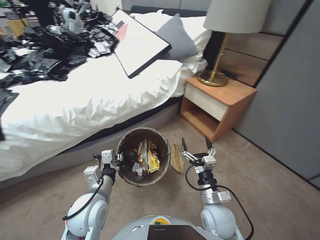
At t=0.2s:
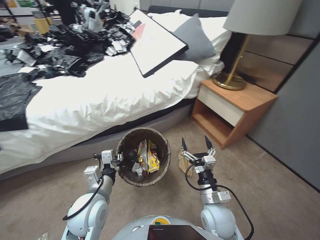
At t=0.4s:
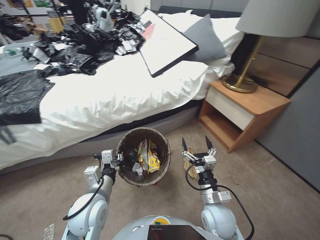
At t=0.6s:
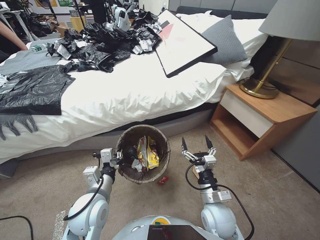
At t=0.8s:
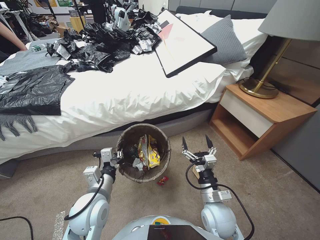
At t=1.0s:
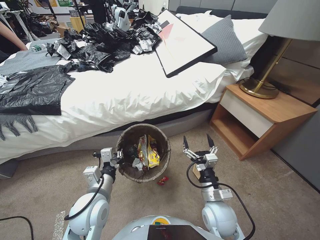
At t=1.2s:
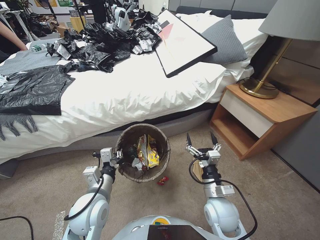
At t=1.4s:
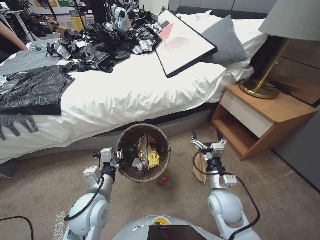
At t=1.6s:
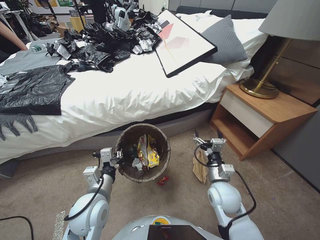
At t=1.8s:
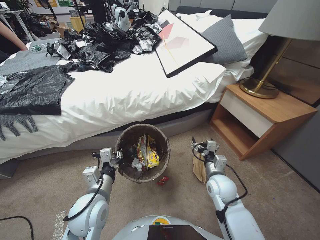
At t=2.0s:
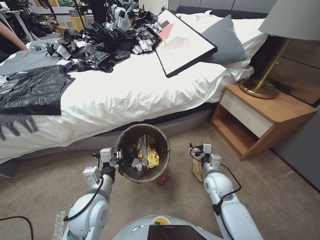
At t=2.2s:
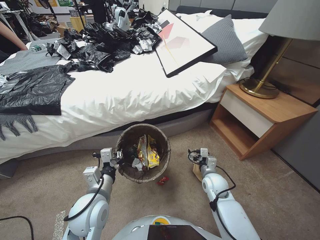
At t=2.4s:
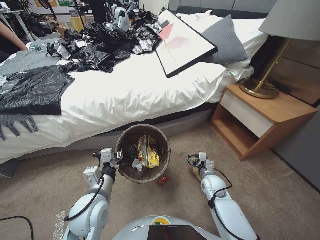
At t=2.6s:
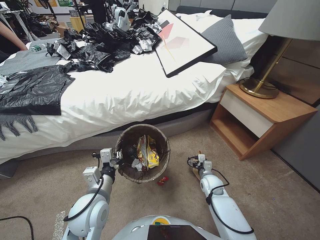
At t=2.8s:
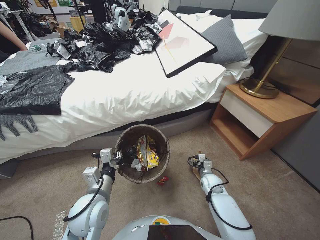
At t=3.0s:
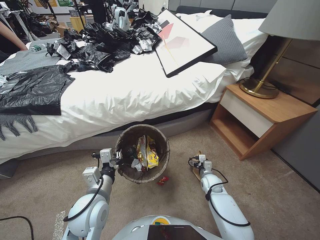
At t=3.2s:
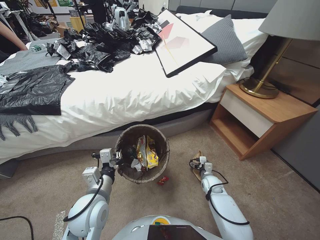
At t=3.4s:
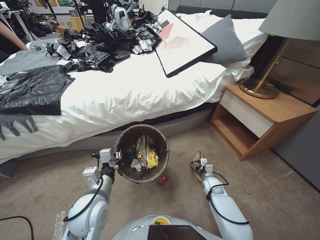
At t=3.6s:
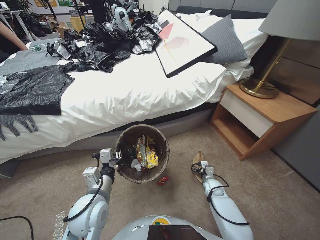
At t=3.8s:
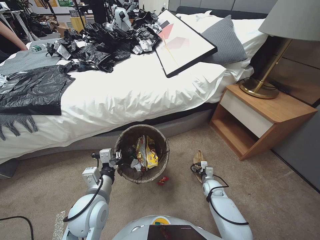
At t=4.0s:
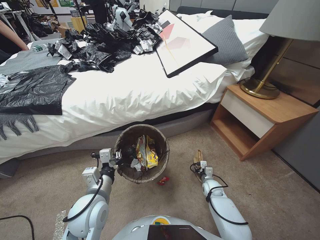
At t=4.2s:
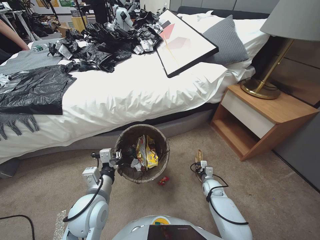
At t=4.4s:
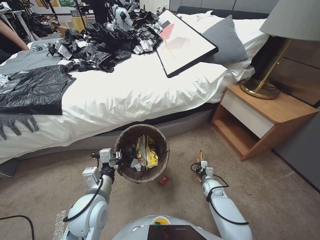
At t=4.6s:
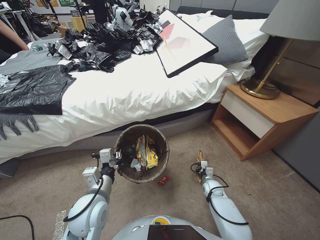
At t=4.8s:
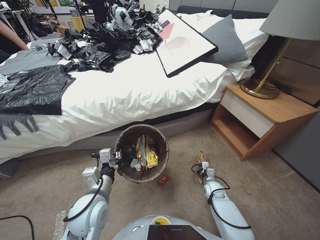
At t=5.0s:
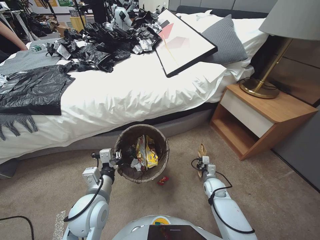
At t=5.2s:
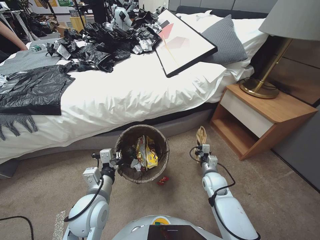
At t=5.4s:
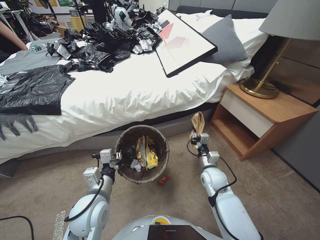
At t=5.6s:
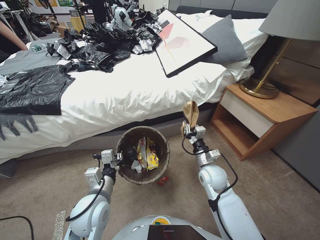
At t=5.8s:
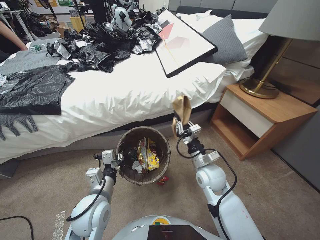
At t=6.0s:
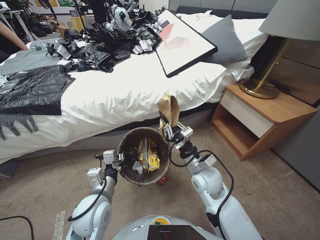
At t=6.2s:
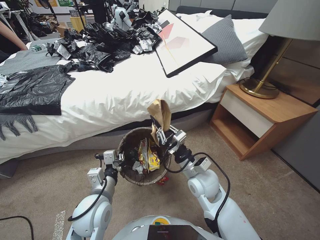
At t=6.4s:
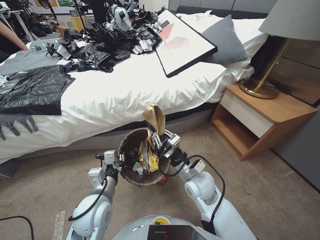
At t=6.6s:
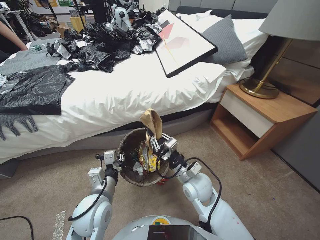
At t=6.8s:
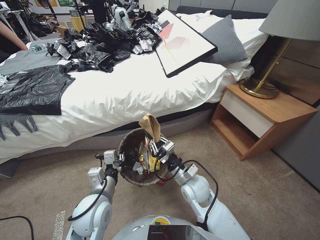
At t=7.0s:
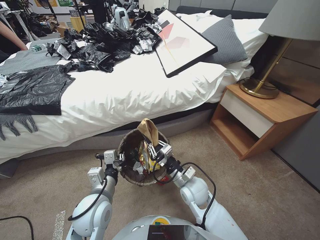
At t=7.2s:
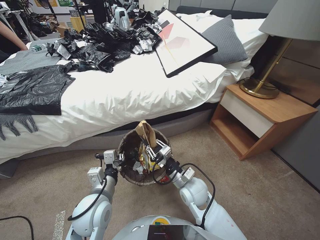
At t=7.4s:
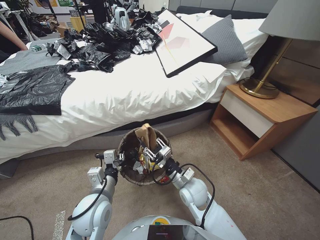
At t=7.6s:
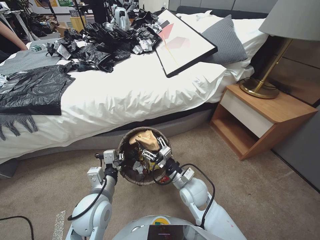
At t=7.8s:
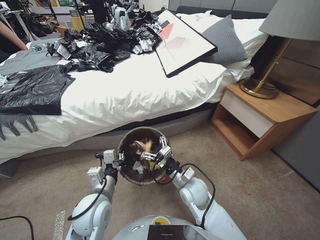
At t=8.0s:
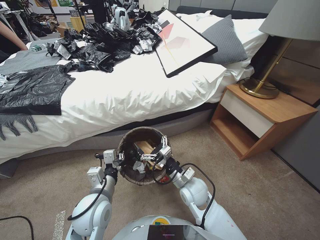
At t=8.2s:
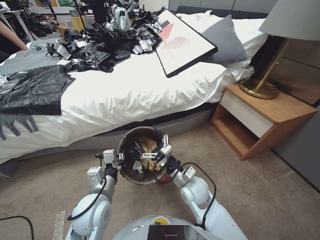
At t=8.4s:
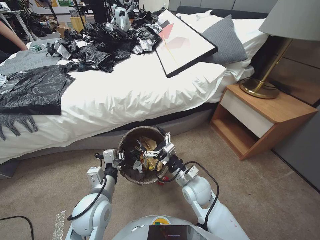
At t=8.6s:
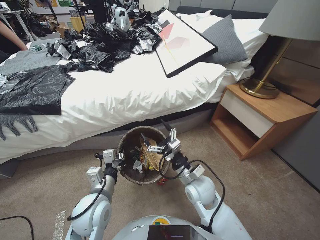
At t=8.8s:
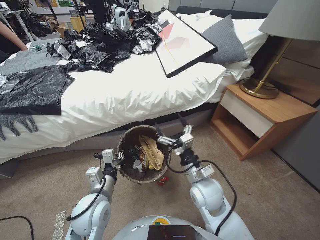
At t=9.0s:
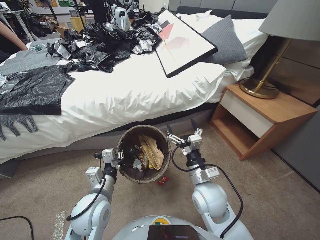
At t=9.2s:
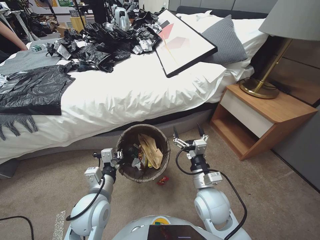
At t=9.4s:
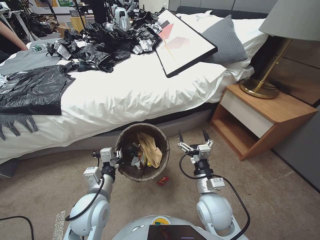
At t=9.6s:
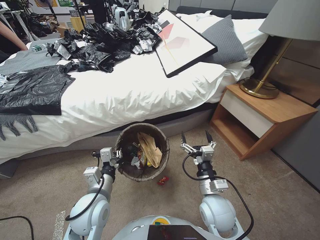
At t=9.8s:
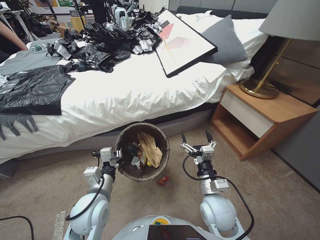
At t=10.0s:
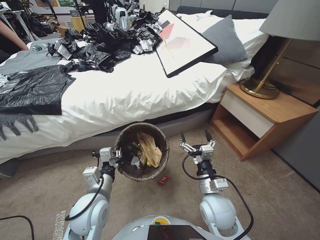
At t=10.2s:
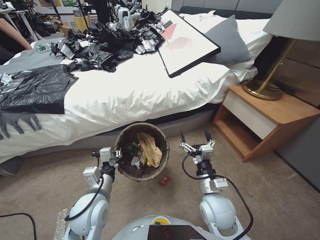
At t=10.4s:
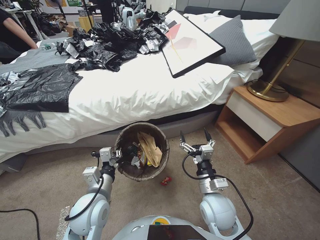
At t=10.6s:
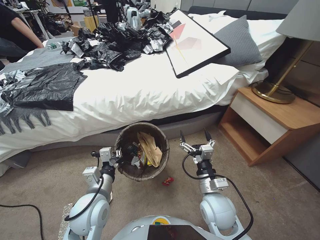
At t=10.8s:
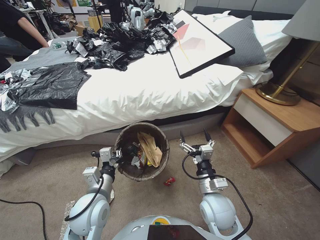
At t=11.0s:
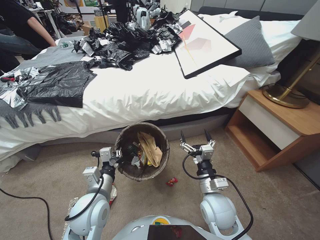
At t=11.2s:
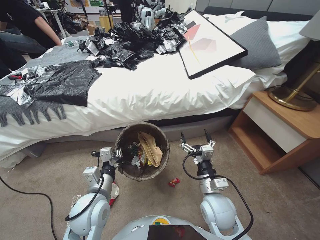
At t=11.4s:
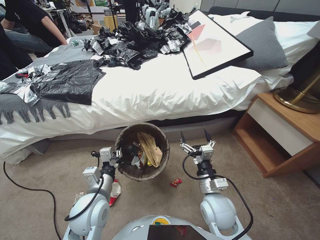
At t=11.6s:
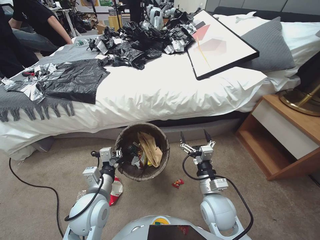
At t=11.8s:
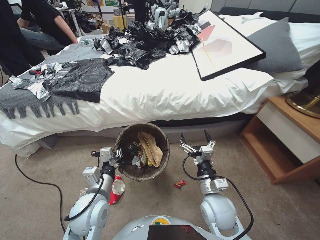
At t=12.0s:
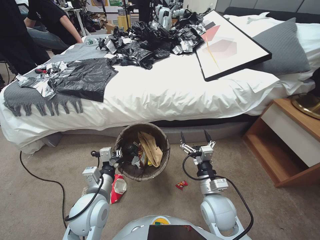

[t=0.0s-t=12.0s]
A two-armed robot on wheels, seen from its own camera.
Task of the whole recording: Pick up the trash bin, then pick up the garbage from the floor and place it into the trash bin.
t=0.0s to t=1.6s: The right gripper travels forward by some 5 cm.
t=1.6s to t=3.0s: The right gripper is displaced downward and forward by about 20 cm.
t=3.0s to t=4.4s: The right gripper moves downward, about 10 cm, and closes.
t=4.4s to t=6.0s: The right gripper moves upward and to the left, approximately 25 cm.
t=6.0s to t=7.6s: The right gripper is displaced to the left by some 5 cm, and opens.
t=7.6s to t=9.0s: The right gripper goes some 5 cm upward, and opens its fingers.
t=9.0s to t=10.4s: The right gripper shifts by approximately 5 cm.

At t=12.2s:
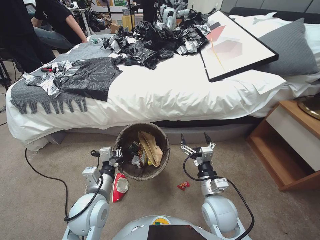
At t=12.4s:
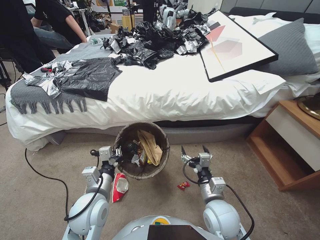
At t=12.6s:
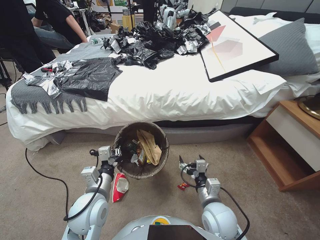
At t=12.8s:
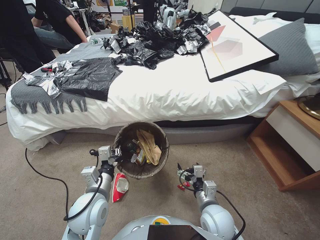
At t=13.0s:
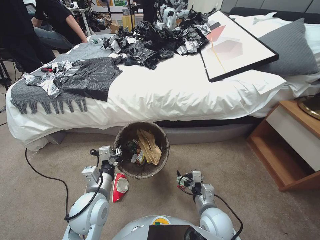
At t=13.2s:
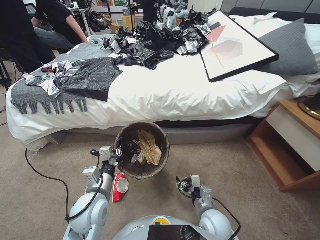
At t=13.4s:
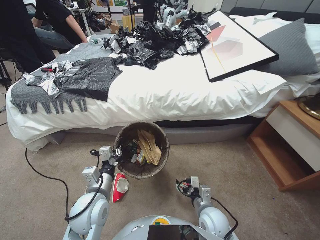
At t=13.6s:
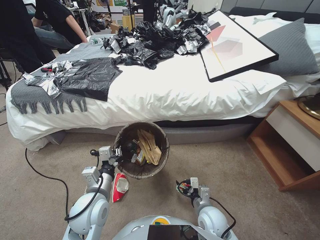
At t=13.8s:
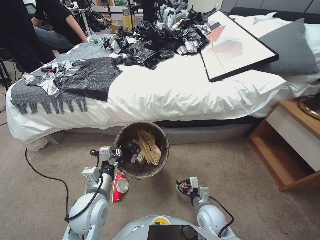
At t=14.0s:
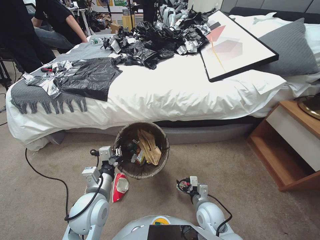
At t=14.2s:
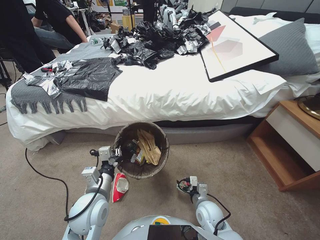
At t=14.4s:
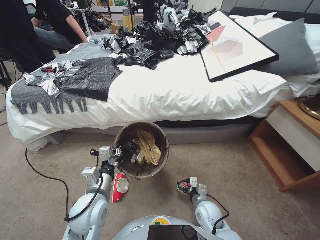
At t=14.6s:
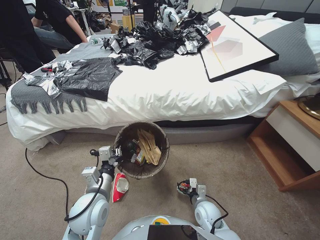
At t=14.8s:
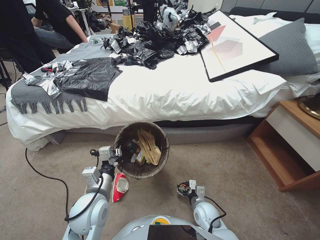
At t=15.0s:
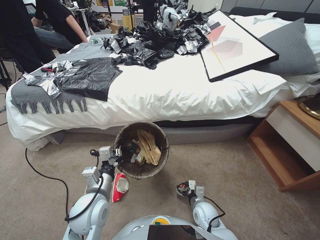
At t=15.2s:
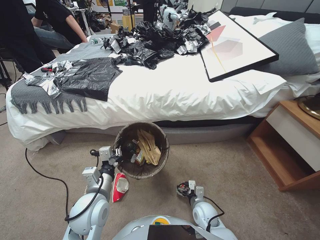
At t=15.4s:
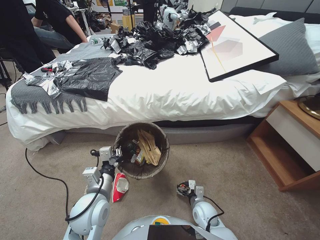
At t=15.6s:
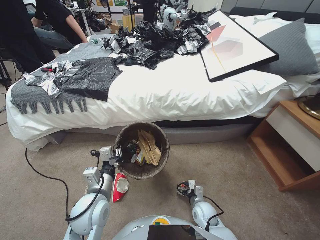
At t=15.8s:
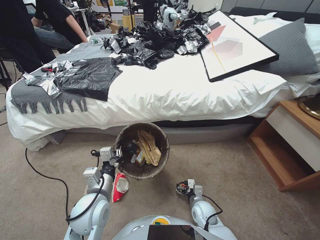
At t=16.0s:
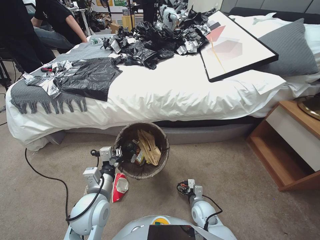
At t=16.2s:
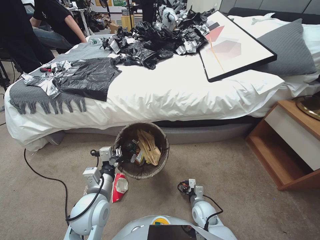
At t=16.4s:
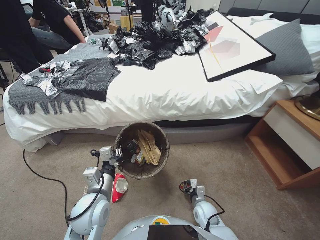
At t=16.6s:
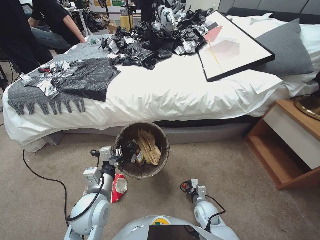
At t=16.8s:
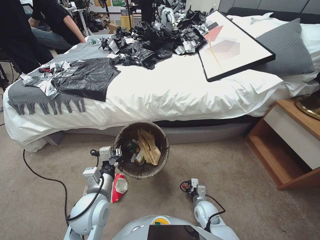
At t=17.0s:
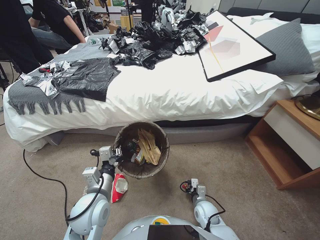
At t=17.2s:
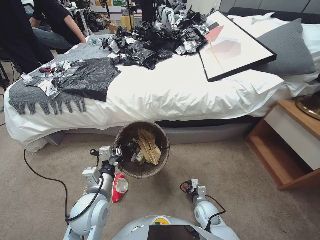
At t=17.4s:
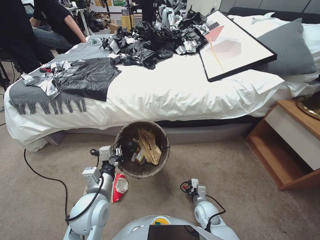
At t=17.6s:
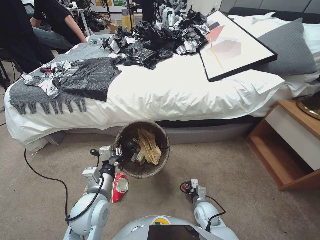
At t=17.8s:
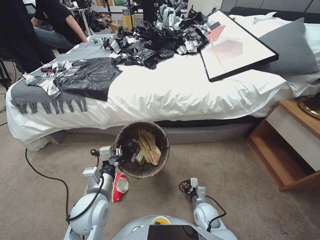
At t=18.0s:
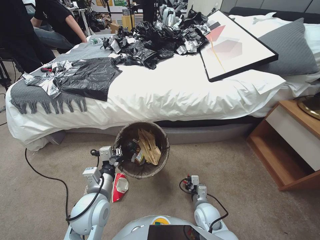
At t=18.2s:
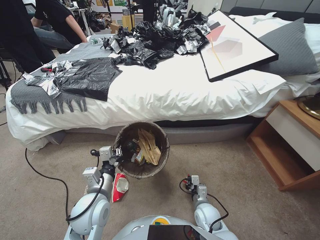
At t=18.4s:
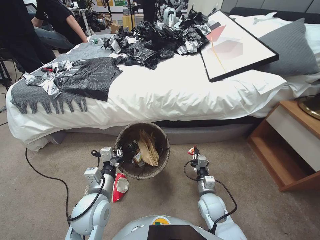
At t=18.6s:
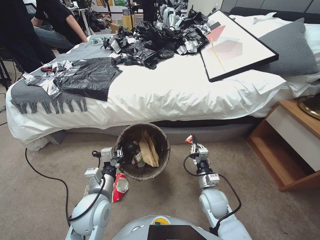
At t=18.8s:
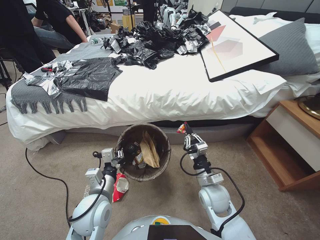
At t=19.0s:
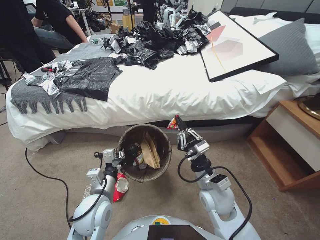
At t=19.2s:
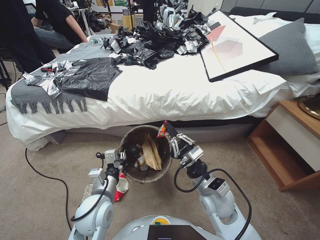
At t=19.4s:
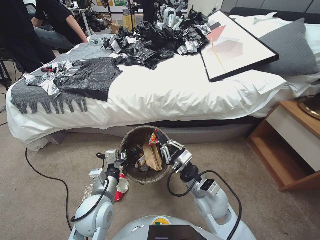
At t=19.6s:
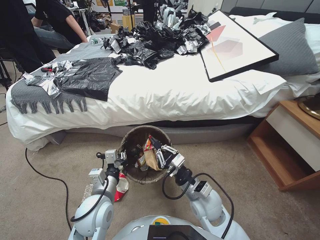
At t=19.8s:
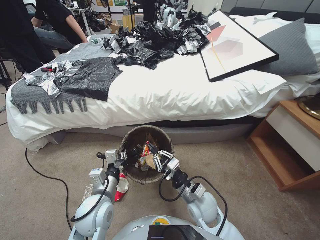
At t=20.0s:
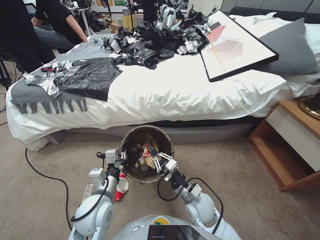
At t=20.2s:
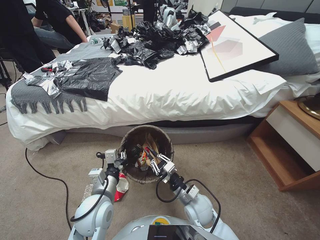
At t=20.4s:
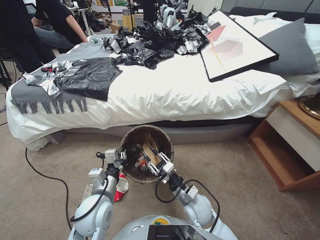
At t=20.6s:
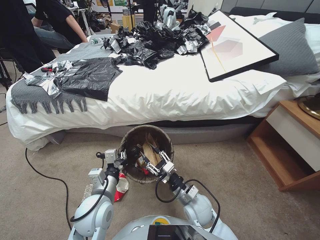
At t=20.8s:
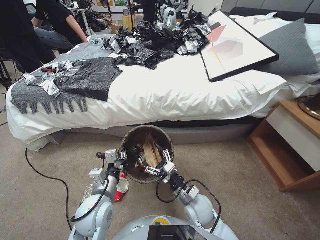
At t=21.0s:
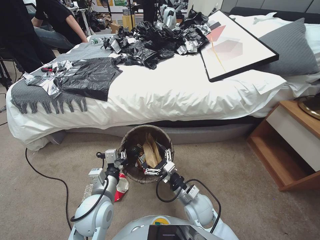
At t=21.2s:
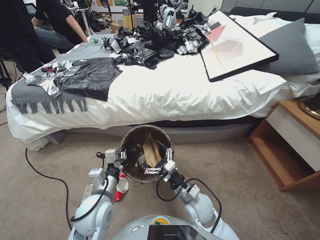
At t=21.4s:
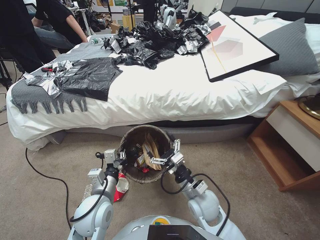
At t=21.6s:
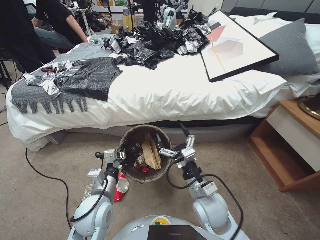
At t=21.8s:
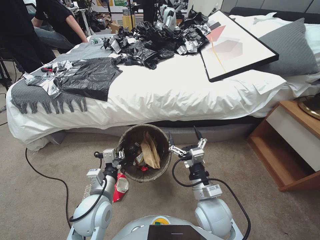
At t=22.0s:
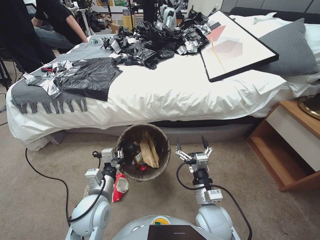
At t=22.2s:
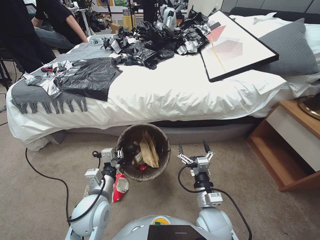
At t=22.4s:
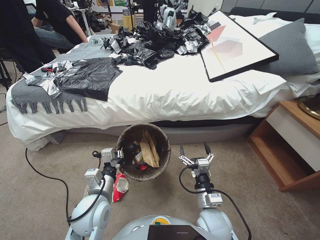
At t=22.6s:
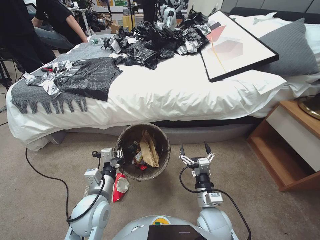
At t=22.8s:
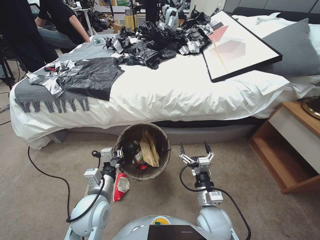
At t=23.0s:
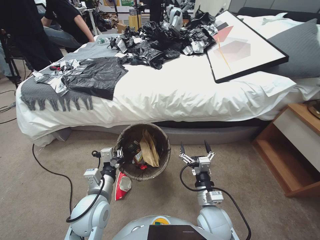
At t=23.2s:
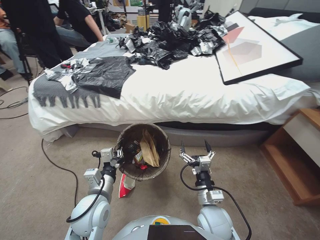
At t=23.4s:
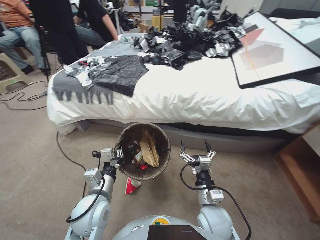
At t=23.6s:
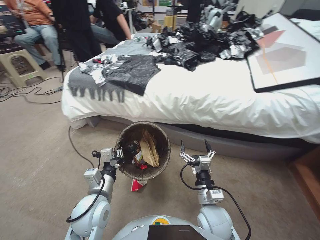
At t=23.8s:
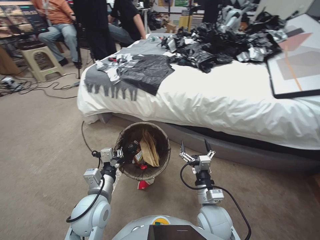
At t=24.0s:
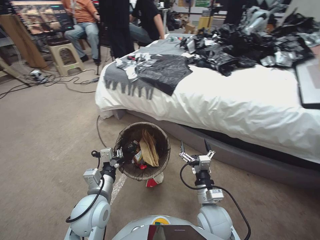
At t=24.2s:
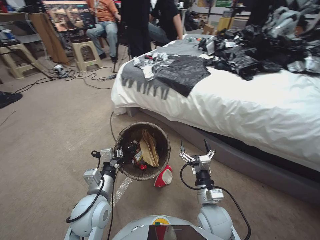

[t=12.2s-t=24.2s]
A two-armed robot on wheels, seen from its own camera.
Task of the whole recording: Pick up the trash bin, then pick up the garbage from the floor and place it into the trash bin.
t=12.2s to t=13.8s: The right gripper moves downward, some 10 cm.
t=13.8s to t=15.2s: The right gripper moves downward, roughly 5 cm.
t=15.2s to t=16.6s: The right gripper closes up.
t=16.6s to t=18.2s: The grippers move only a little.
t=18.2s to t=19.8s: The right gripper heads upward, covering about 15 cm.
t=19.8s to t=21.2s: The right gripper opens.
t=21.2s to t=22.6s: The right gripper is displaced backward by roughly 5 cm.
